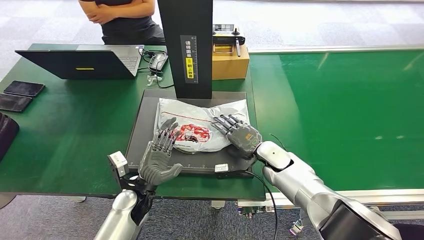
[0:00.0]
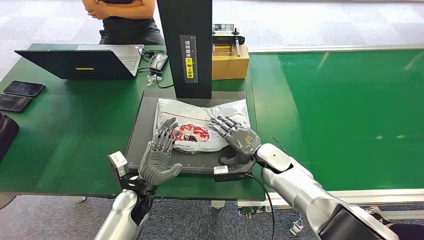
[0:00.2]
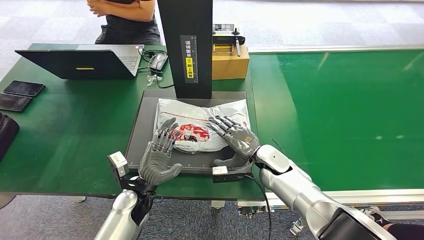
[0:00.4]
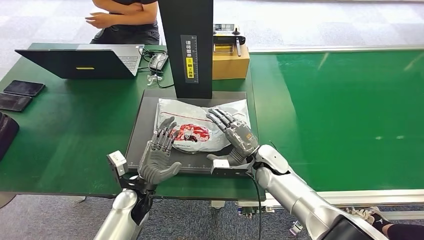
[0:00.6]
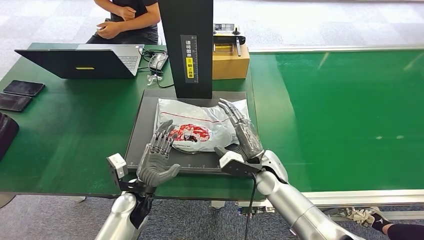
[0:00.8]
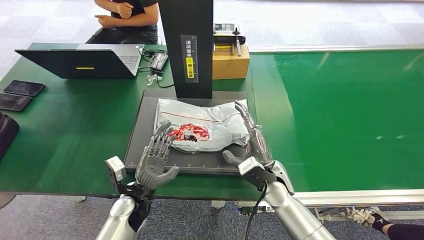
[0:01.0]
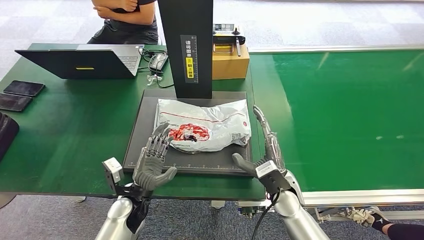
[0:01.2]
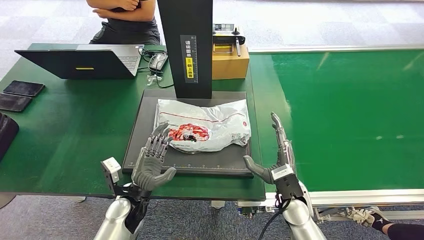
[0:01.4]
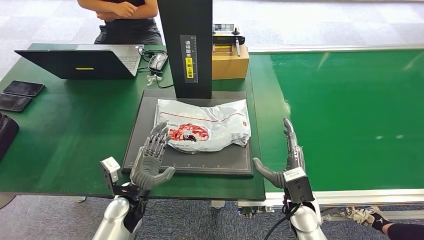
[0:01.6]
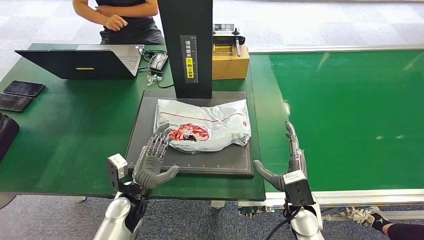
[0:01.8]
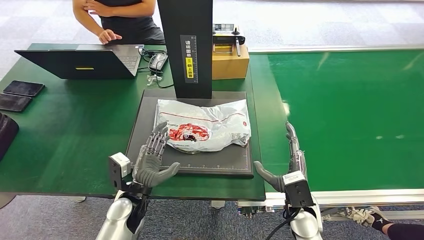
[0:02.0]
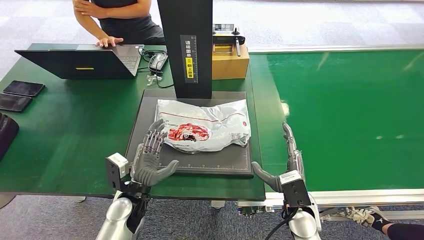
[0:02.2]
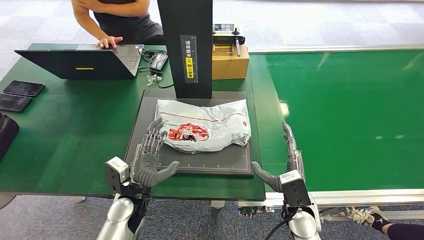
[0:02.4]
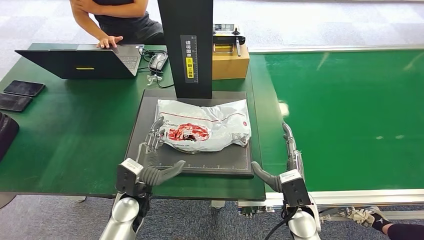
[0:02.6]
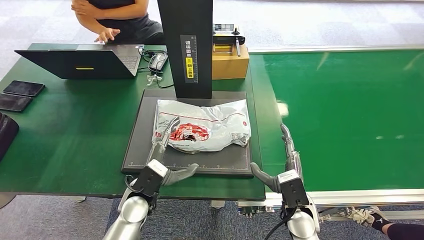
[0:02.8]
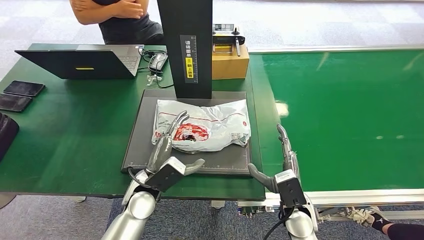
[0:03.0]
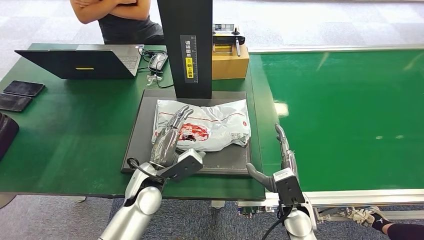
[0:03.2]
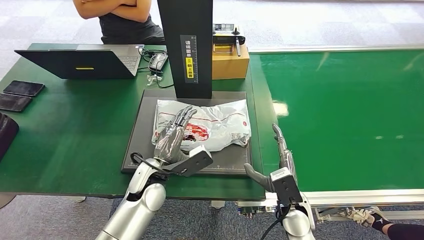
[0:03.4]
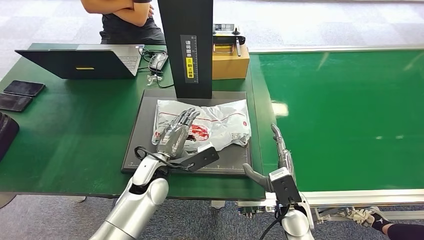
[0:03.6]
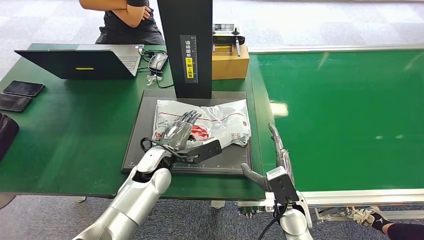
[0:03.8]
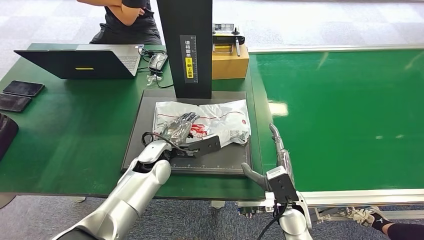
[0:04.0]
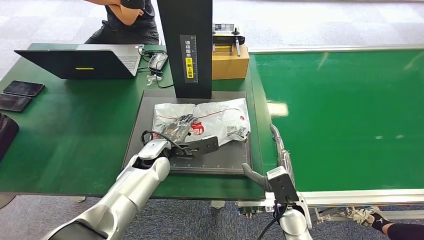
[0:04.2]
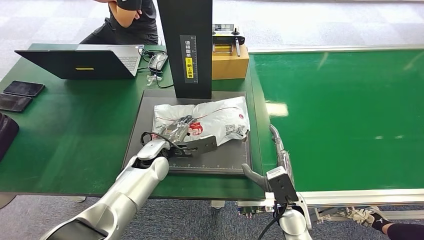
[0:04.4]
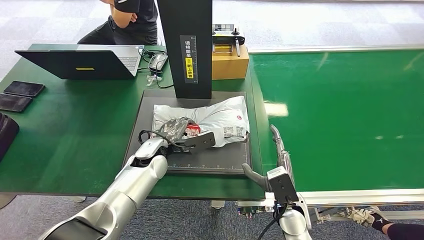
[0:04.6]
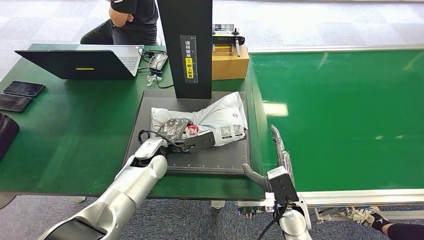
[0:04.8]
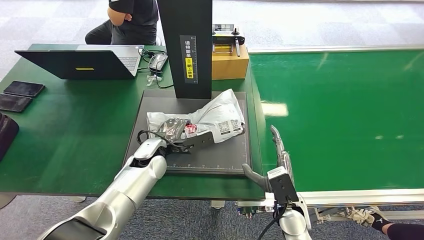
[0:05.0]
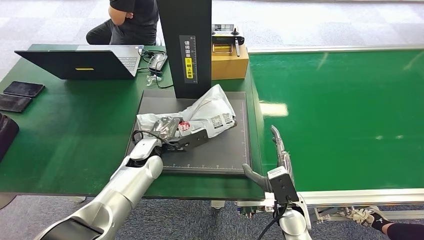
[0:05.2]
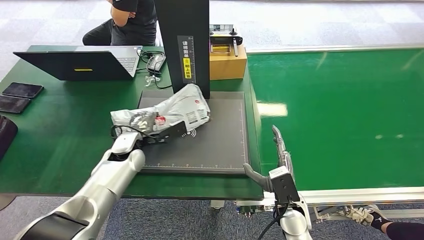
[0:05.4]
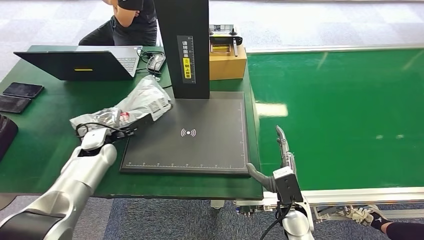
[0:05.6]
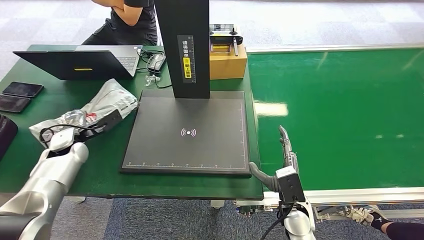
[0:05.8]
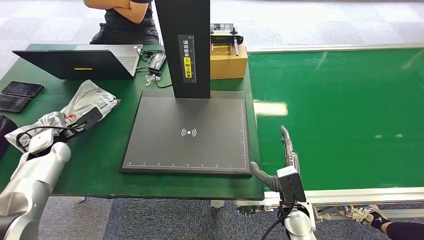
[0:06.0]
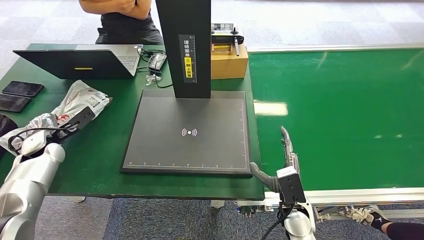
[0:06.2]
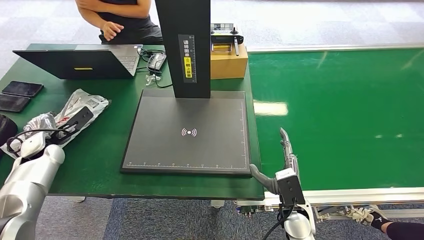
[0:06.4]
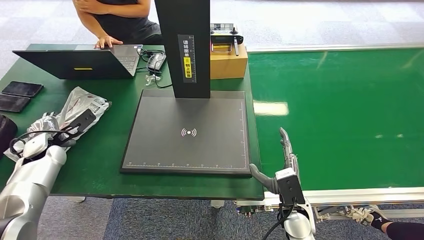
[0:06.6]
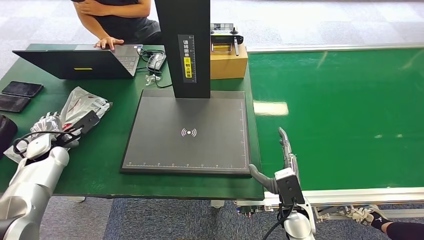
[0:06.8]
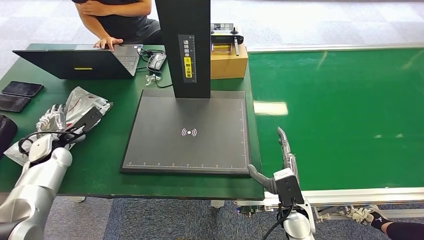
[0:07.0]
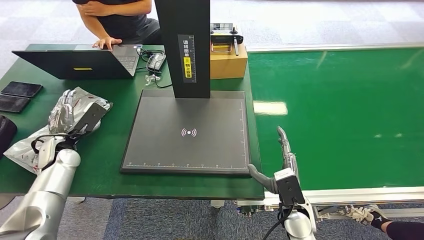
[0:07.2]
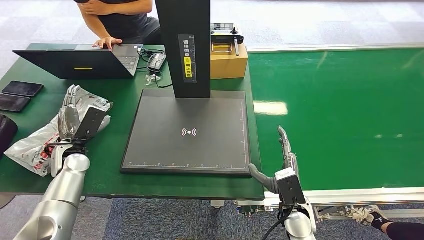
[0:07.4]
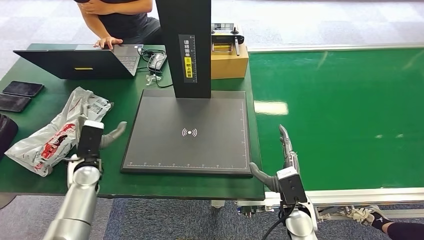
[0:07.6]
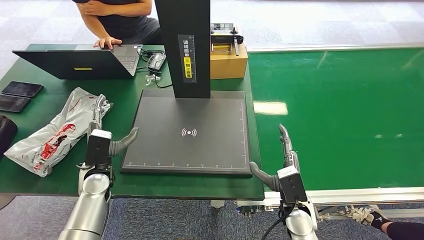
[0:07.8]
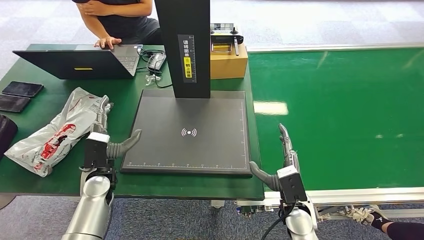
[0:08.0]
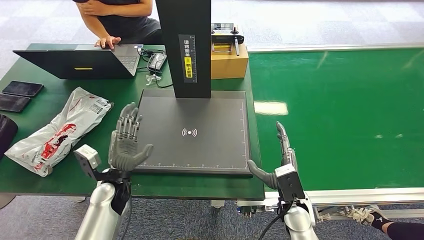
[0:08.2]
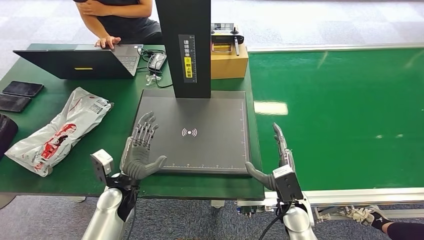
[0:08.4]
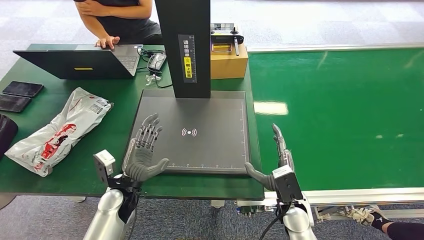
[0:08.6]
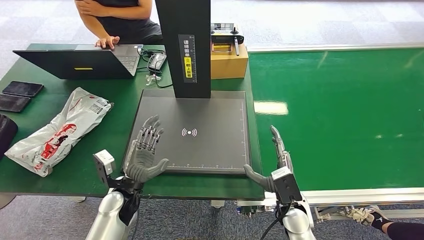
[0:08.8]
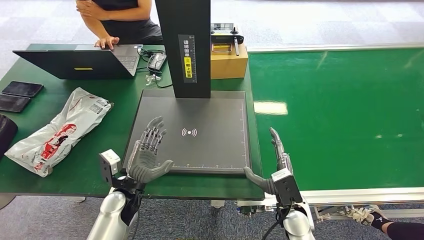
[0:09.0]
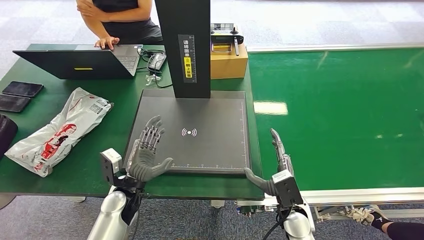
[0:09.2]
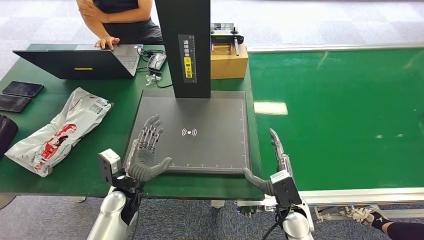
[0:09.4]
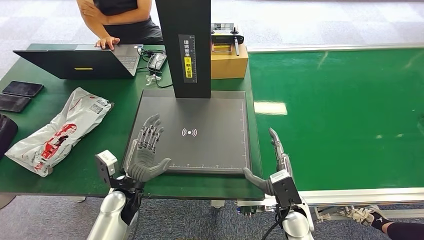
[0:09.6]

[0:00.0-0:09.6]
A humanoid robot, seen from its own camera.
Step, 0:01.2 to 0:05.0: Pick up the package from the inbound machine.
Step, 0:05.2 to 0:09.6: Place the package into the parcel locker.
0:00.0 to 0:01.6: The right hand goes approximately 15 cm backward.
0:01.6 to 0:03.2: The left hand shifts roughly 10 cm upward and to the right.
0:03.2 to 0:04.8: The left hand moves forward, about 10 cm.
0:06.4 to 0:08.0: The left hand travels to the right by roughly 20 cm.
0:08.0 to 0:09.6: The left hand is displaced to the right by roughly 5 cm.

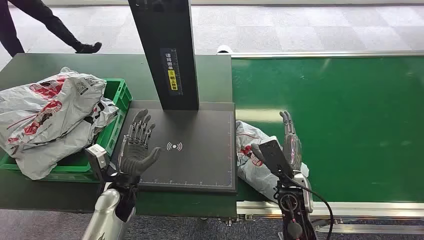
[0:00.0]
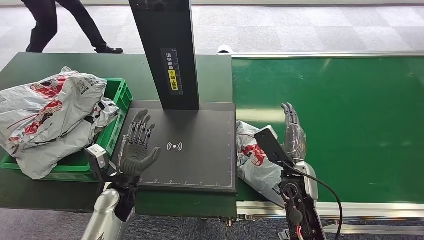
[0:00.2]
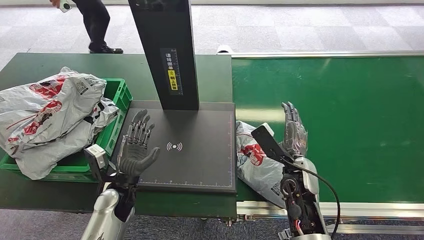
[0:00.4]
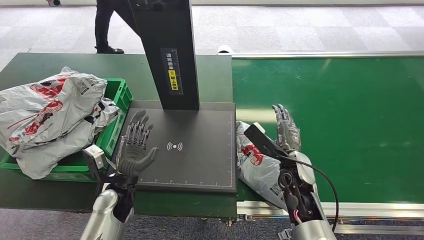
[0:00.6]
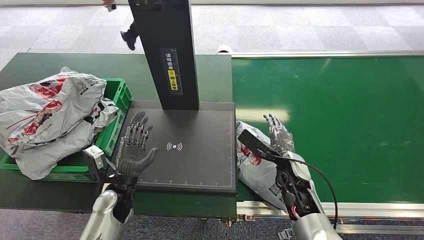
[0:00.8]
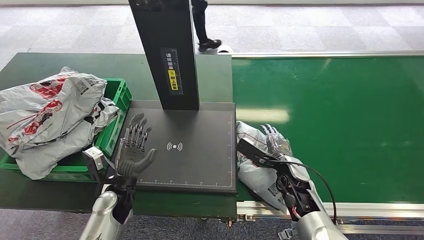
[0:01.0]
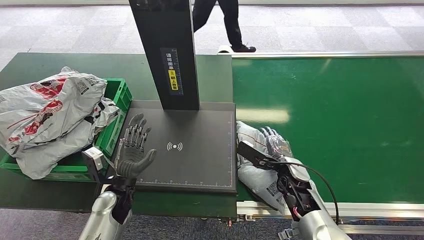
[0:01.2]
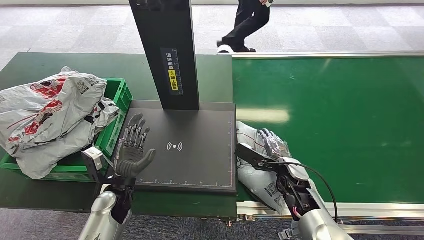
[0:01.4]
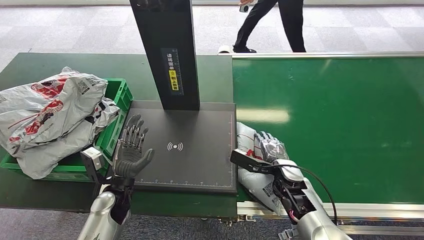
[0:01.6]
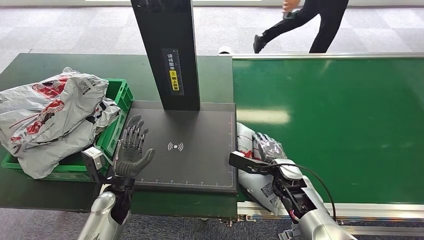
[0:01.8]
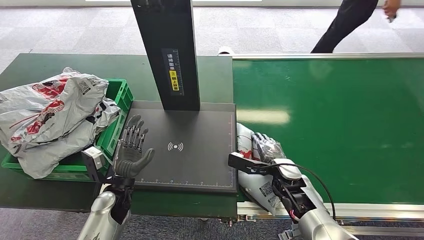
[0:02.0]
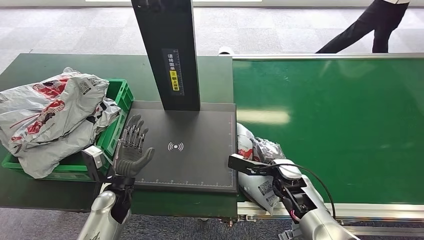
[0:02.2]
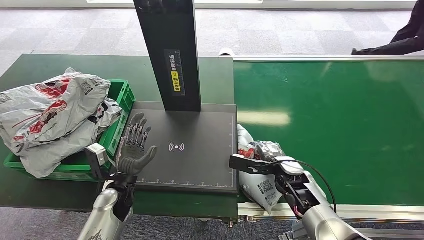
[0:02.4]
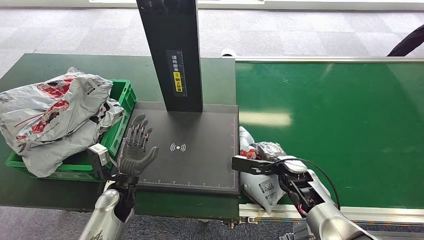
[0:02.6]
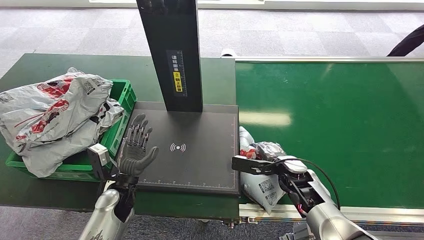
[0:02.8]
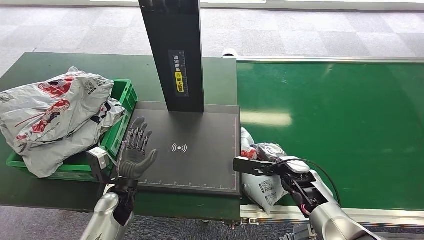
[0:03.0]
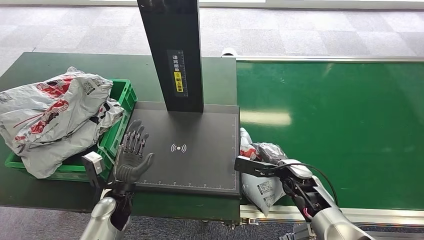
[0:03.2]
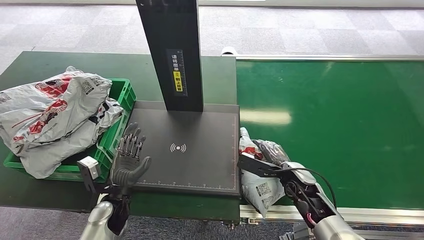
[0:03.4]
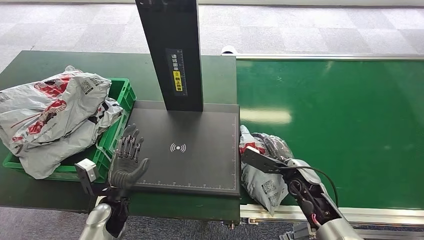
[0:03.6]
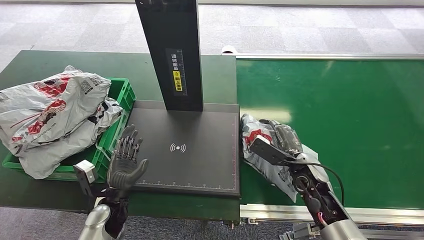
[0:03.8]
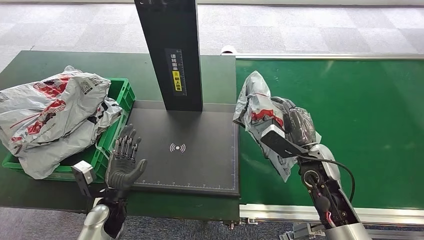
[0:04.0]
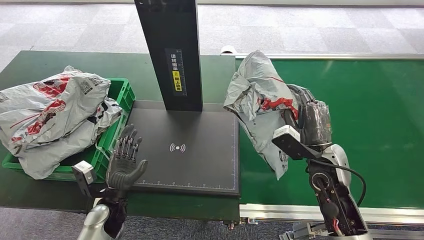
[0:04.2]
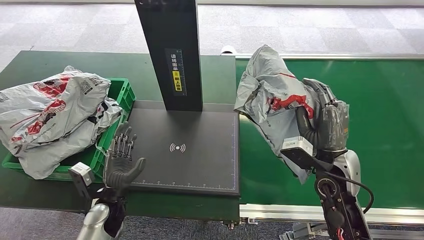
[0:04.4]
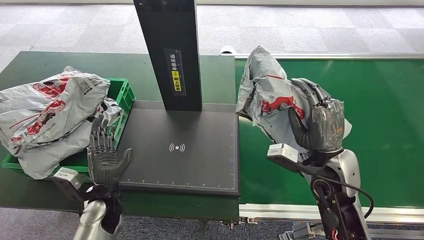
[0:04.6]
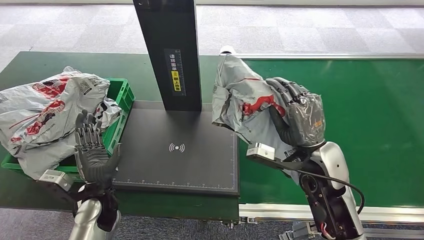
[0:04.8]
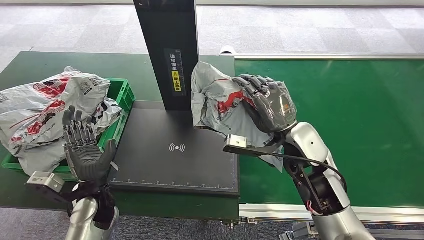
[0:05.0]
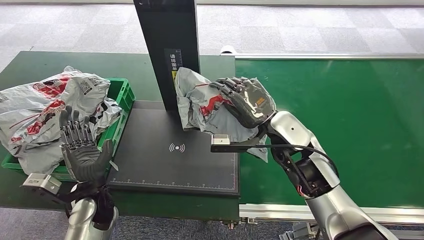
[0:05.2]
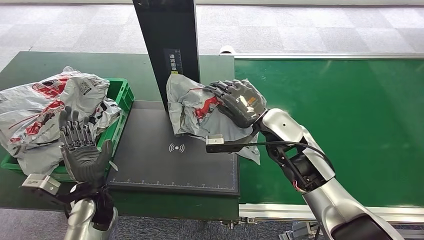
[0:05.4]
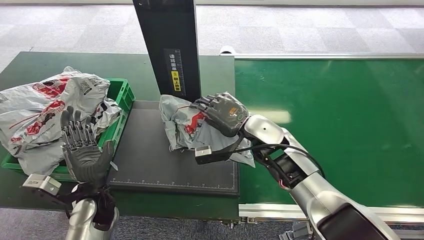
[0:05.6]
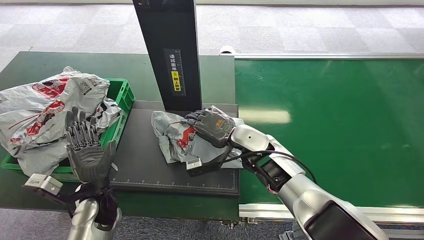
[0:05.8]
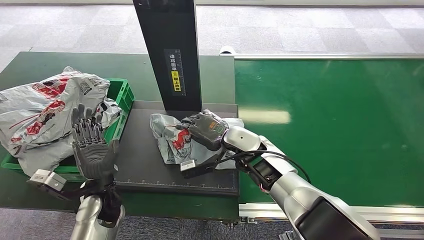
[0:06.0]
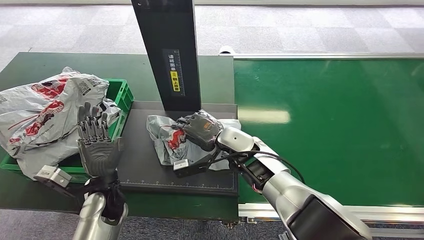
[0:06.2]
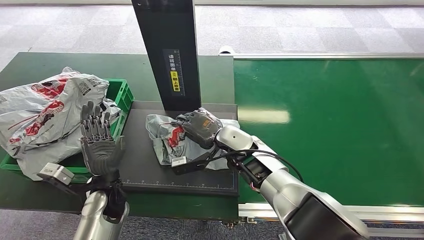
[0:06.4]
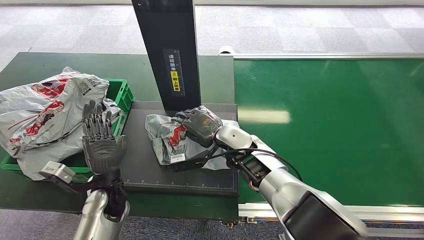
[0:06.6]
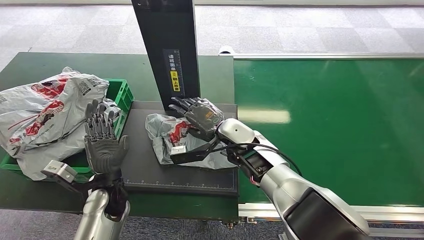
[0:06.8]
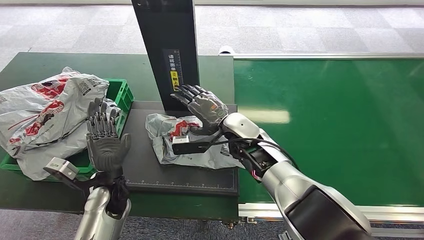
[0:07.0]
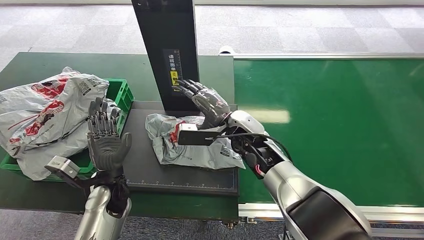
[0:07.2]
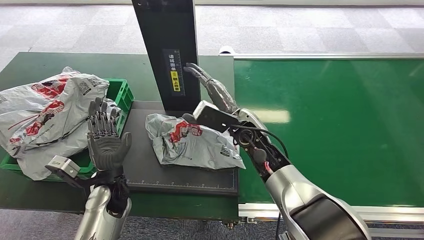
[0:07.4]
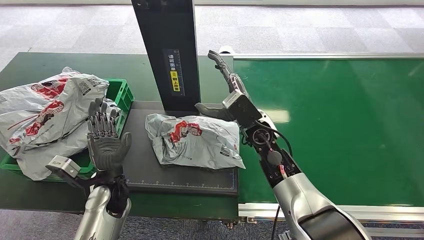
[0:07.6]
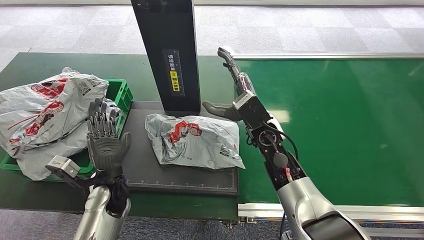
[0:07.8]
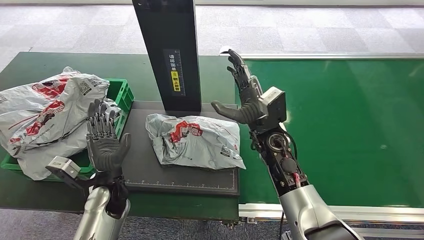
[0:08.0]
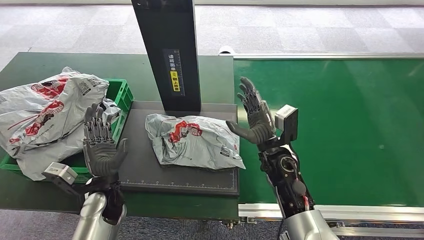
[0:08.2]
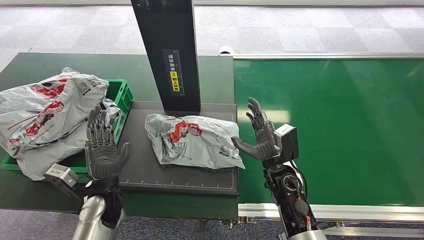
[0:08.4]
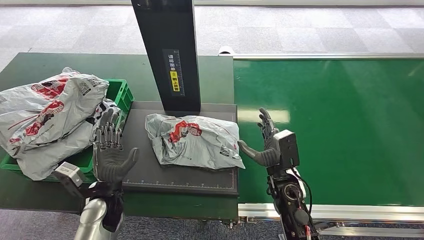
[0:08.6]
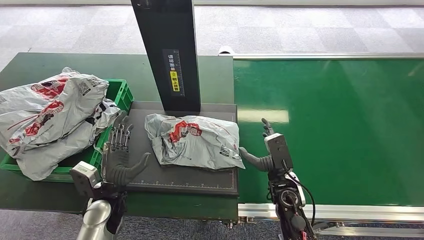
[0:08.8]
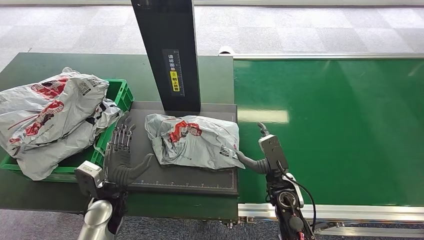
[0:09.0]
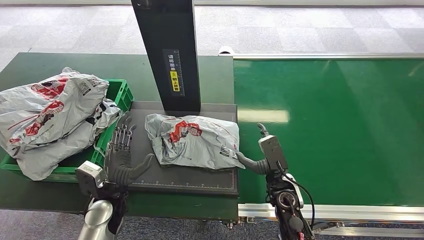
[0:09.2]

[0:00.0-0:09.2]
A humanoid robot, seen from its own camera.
Step, 0:00.0 to 0:04.4: Pick up the package from the conveyor belt.
Step, 0:04.6 to 0:07.6: Place the package onto the inbound machine.
0:07.6 to 0:09.2: The right hand is displaced downward, backward and to the right by approximately 20 cm.
